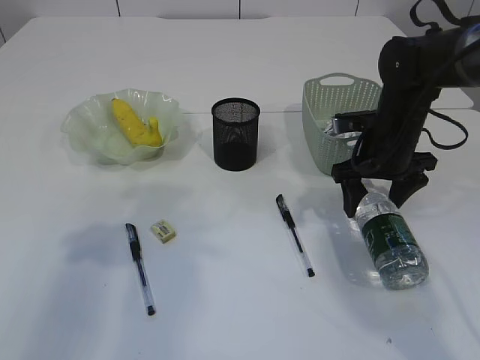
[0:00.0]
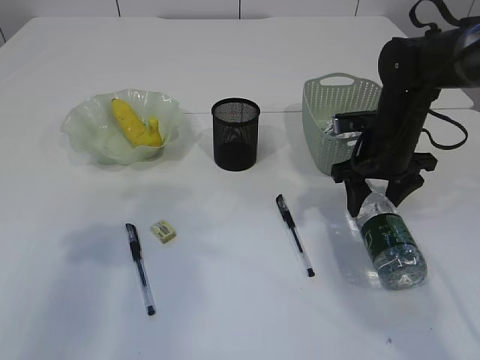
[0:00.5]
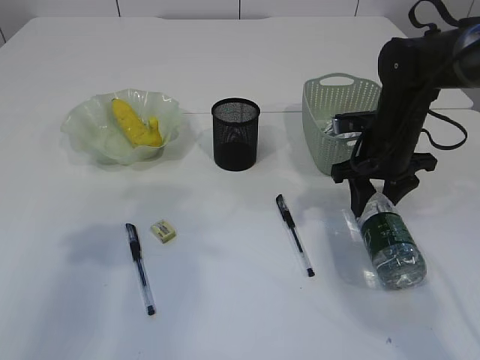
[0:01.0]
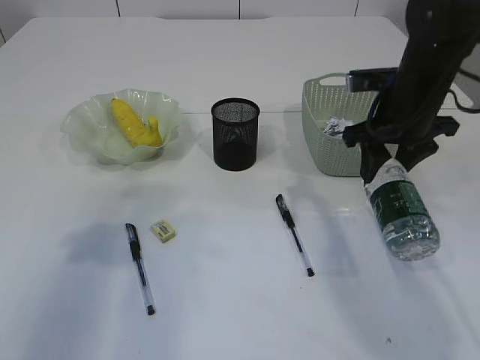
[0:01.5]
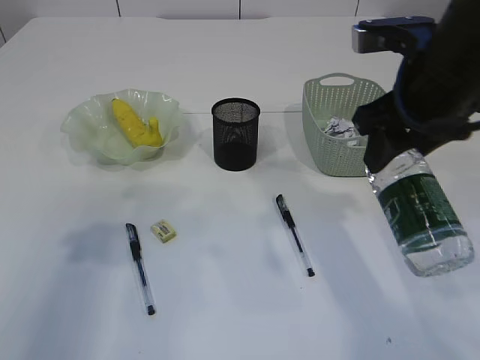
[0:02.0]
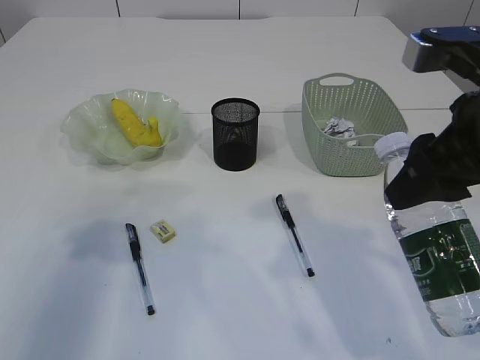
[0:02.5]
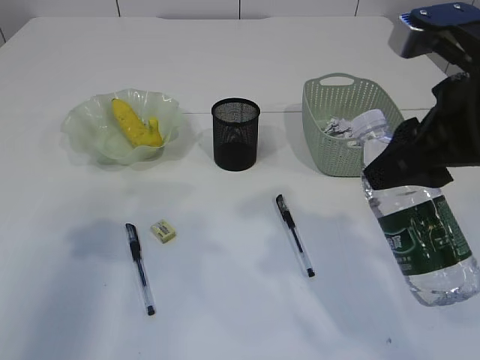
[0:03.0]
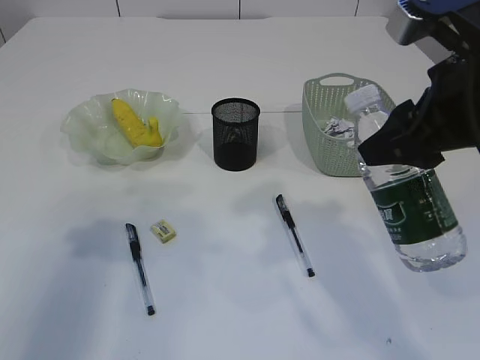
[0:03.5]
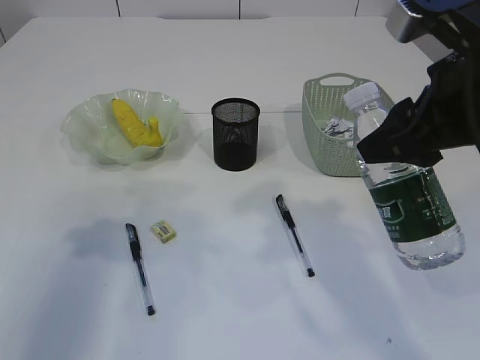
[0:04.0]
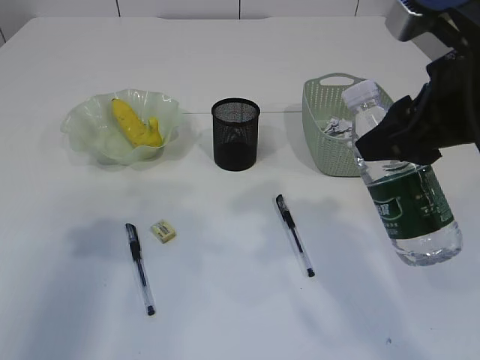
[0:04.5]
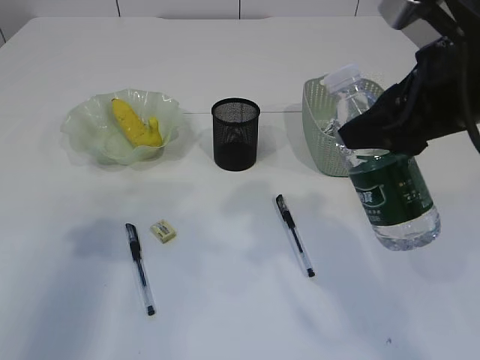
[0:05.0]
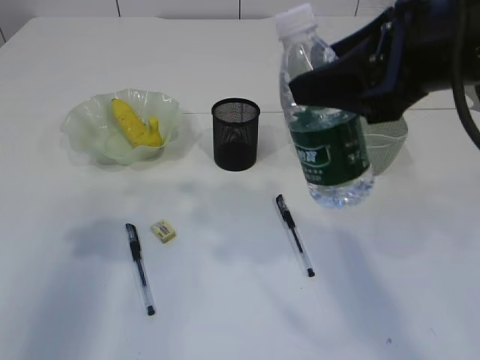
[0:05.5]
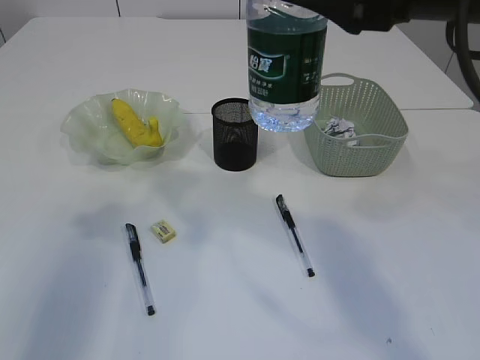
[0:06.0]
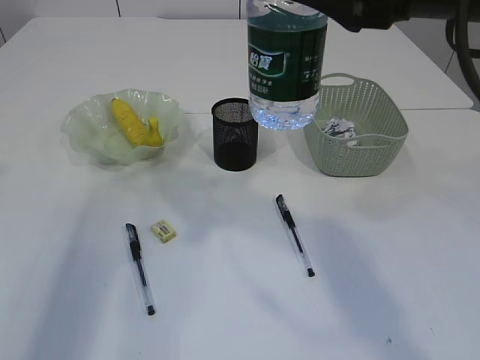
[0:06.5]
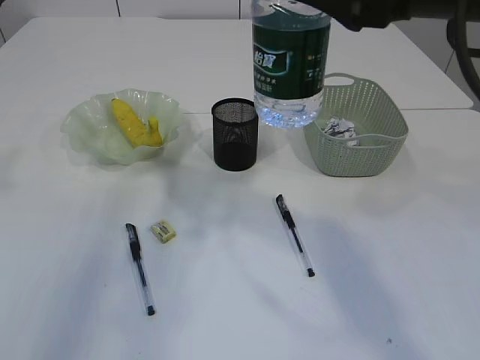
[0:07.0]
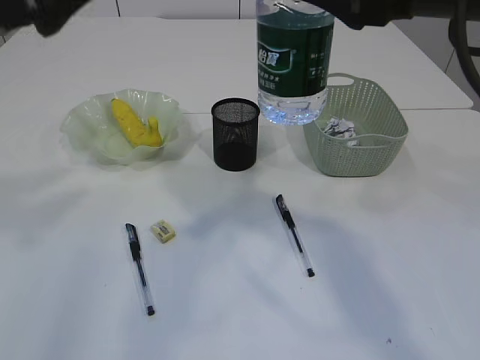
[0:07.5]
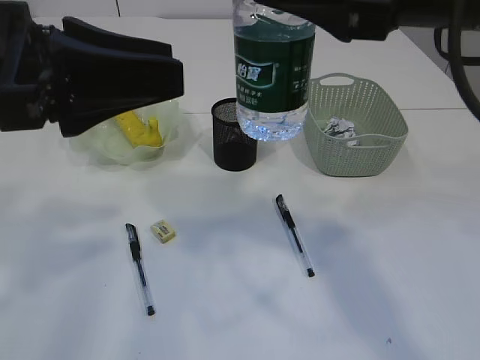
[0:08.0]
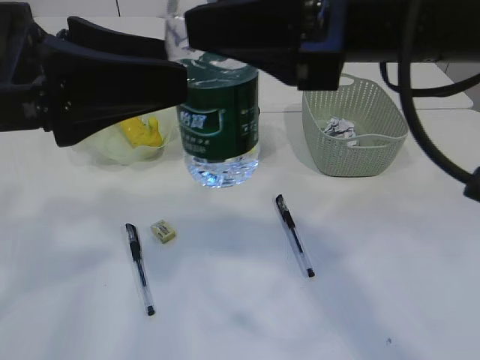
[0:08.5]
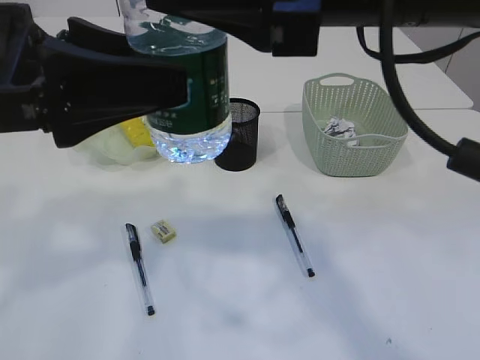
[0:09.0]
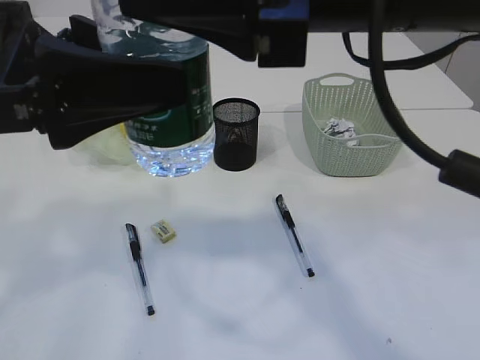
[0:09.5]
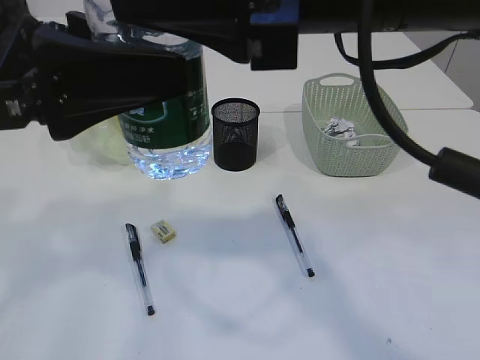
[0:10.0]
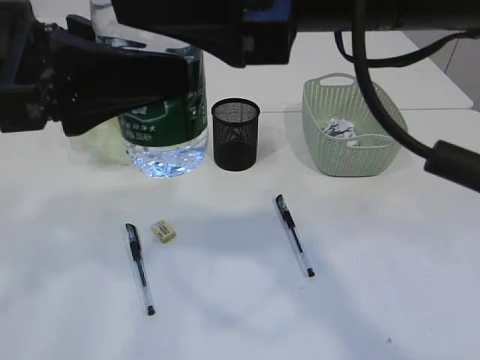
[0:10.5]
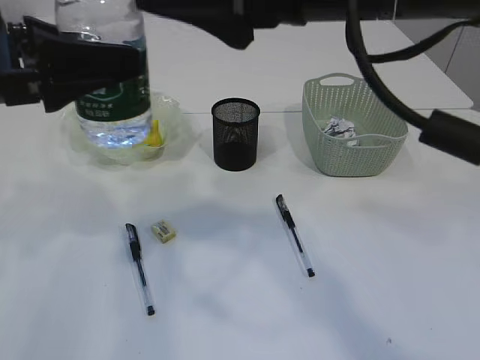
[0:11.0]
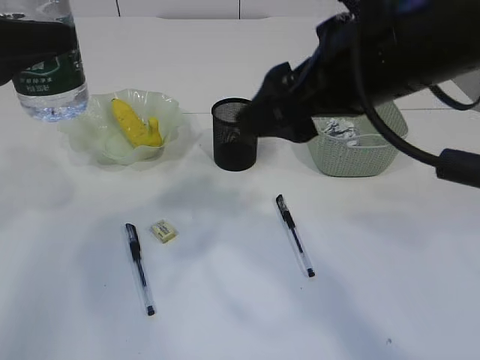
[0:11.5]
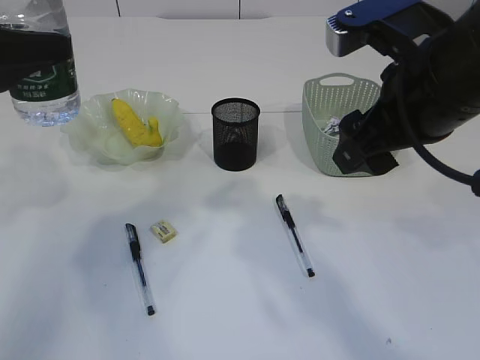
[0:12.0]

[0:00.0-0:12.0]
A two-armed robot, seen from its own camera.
Step, 0:02.0 to 0:11.0: transfer the bottle to the left arm.
0:00.0 to 0:02.0: The right gripper travels upward and backward by approximately 15 cm, and closes up.
0:02.0 to 0:04.0: The right gripper goes some 5 cm backward.
0:04.0 to 0:06.0: The right gripper goes roughly 5 cm upward.
0:06.0 to 0:08.0: The left gripper moves to the right, roughly 10 cm.
0:08.0 to 0:10.0: The right gripper heads to the left, covering some 5 cm.
0:10.0 to 0:12.0: The left gripper goes about 10 cm to the left and forward; the right gripper moves to the right and downward, roughly 10 cm, and opens its fingers.

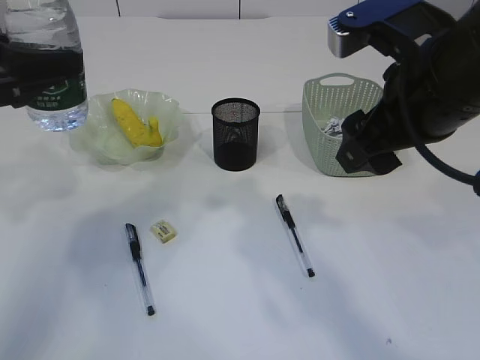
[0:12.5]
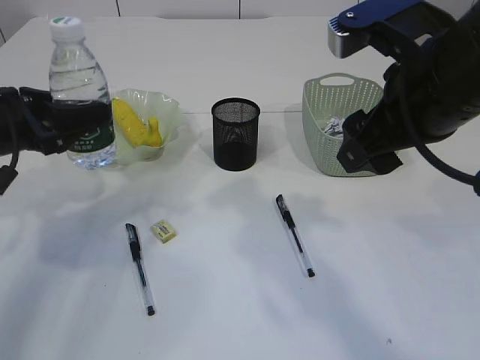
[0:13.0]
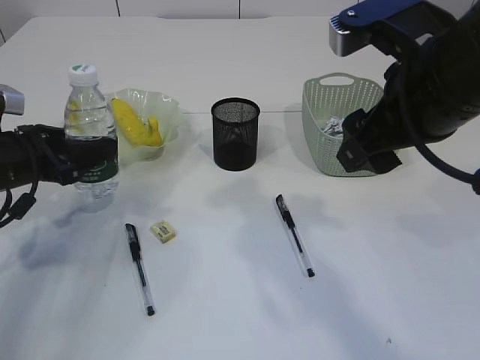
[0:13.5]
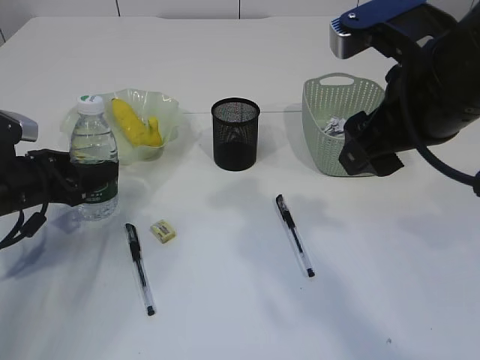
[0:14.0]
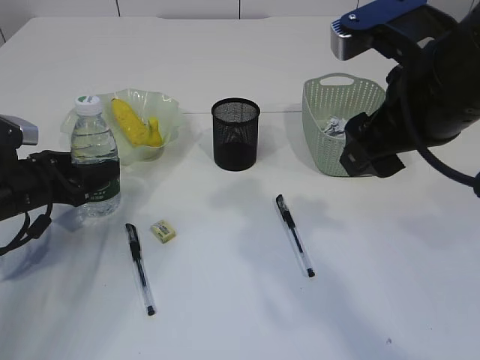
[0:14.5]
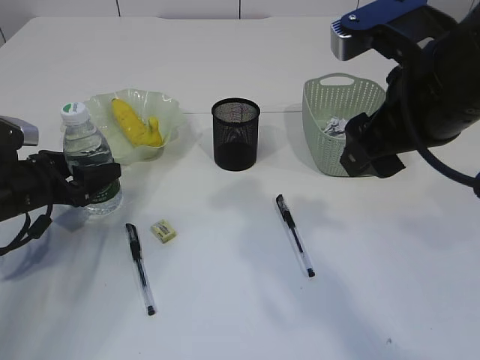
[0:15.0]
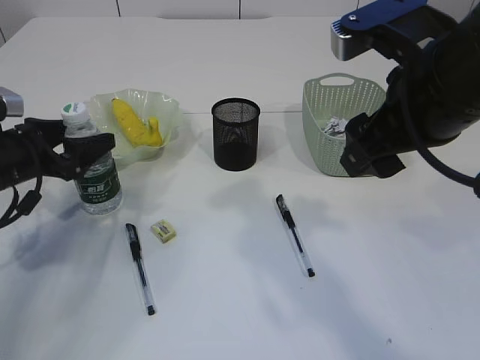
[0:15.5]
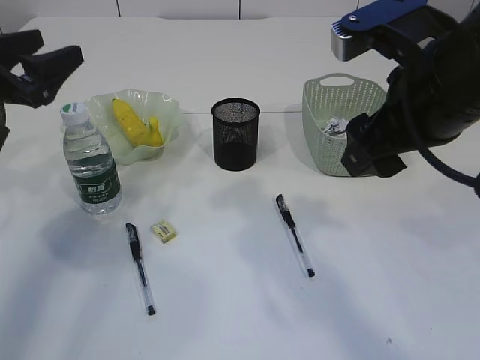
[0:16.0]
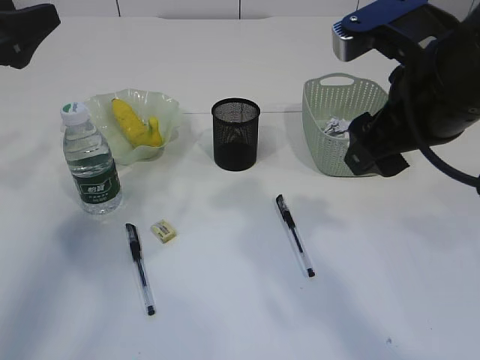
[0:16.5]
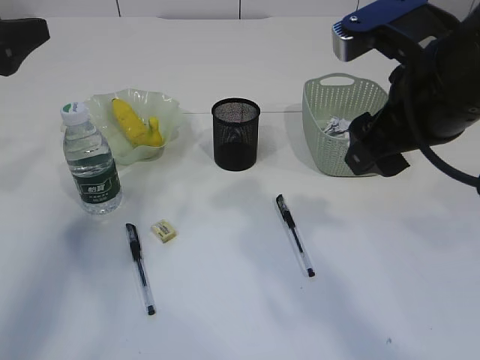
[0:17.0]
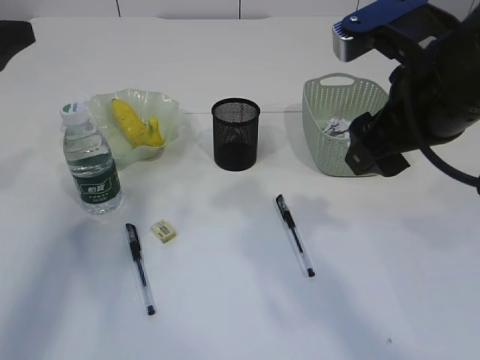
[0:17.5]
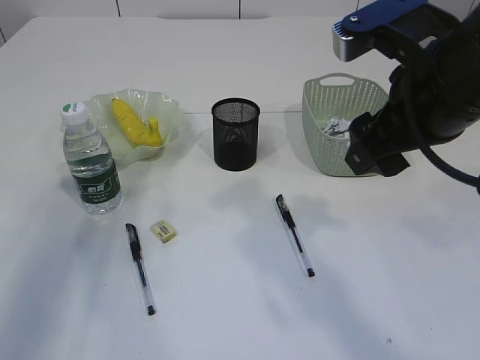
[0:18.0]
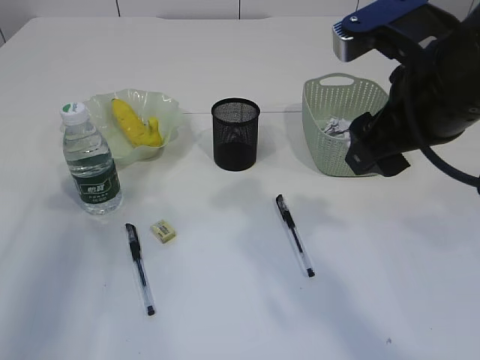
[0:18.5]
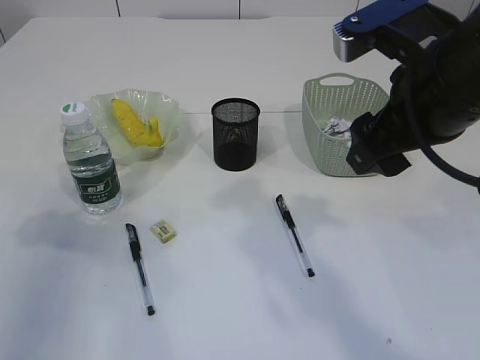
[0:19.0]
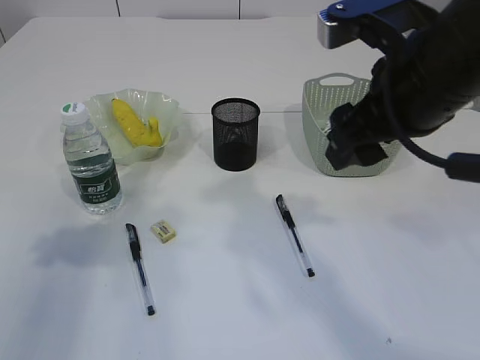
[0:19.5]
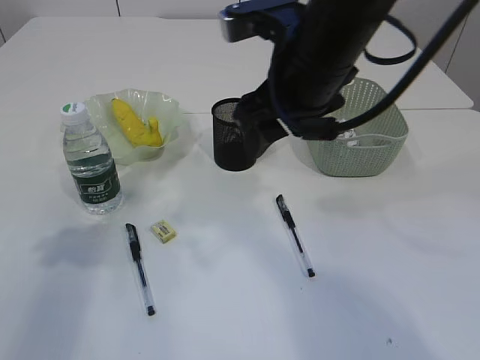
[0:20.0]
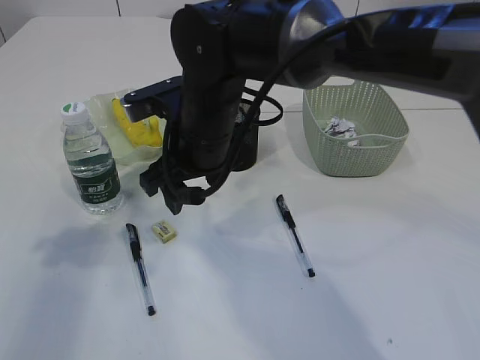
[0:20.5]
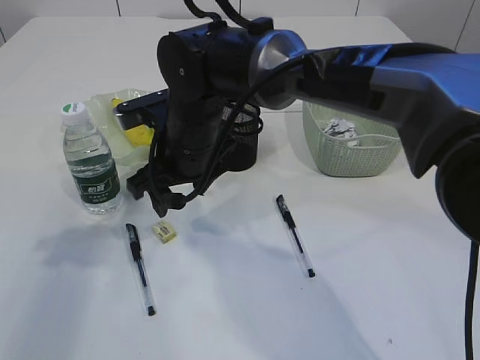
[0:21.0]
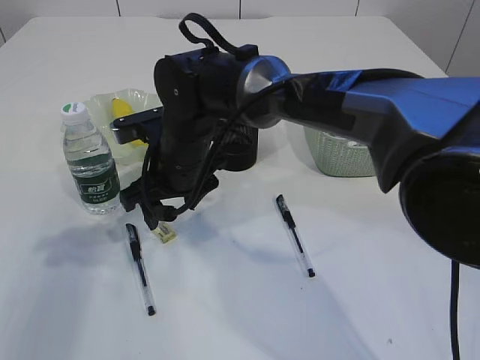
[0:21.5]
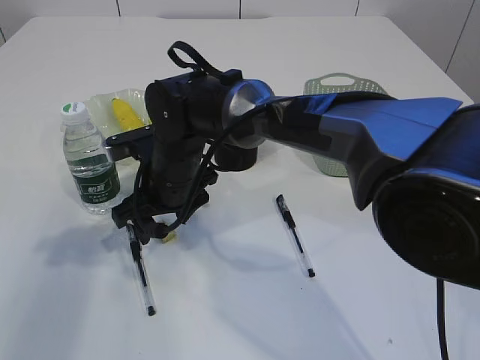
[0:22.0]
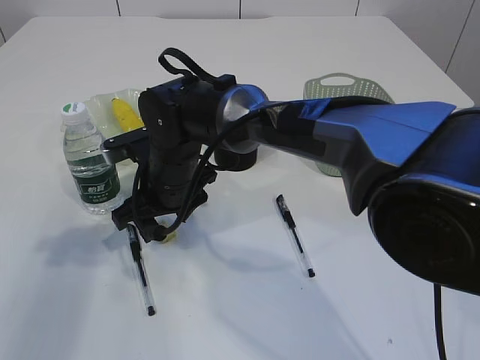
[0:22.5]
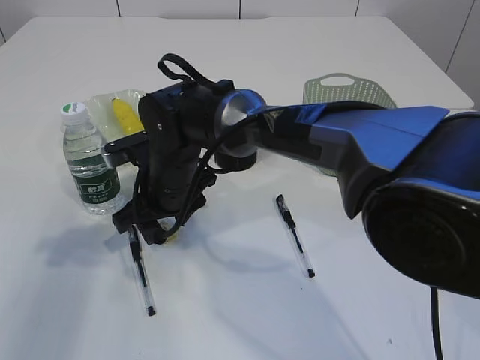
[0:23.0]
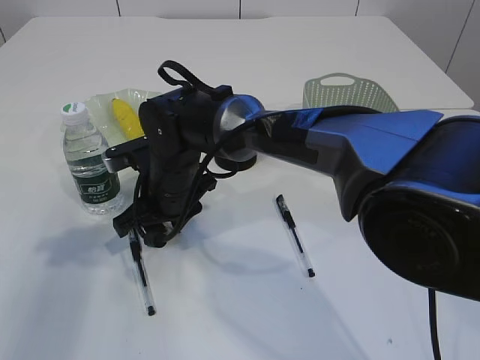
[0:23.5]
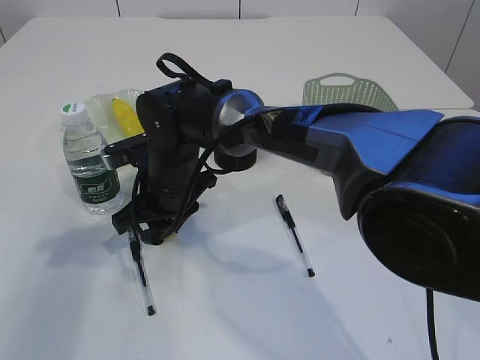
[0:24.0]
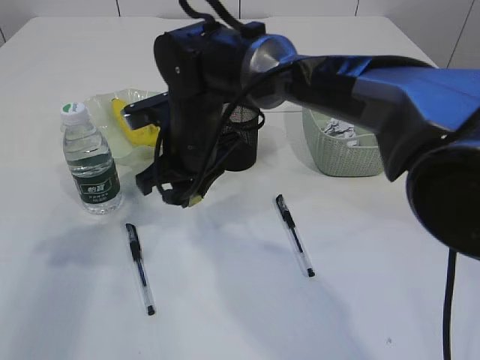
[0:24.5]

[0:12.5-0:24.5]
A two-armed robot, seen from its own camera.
Step, 0:12.5 to 0:15.5: Place the bottle.
Step, 0:16.0 to 0:24.5: Pick up the eraser.
0:12.5 to 0:14.5: The left gripper shifts approximately 20 cm downward.
0:14.5 to 0:16.5: The left gripper shifts some 20 cm upward, and opens its fingers.
0:16.5 to 0:18.5: The left gripper changes place by about 5 cm.
0:18.5 to 0:20.5: The right gripper goes roughly 20 cm to the left, forward and downward.
0:20.5 to 0:22.5: The right gripper moves downward, approximately 10 cm.
0:22.5 to 0:24.5: The right gripper changes place by about 5 cm, and closes.

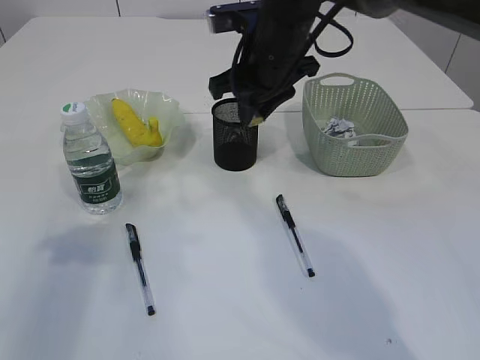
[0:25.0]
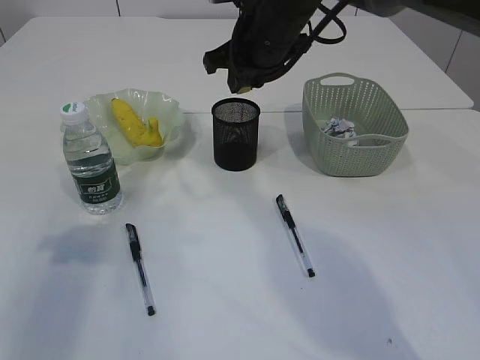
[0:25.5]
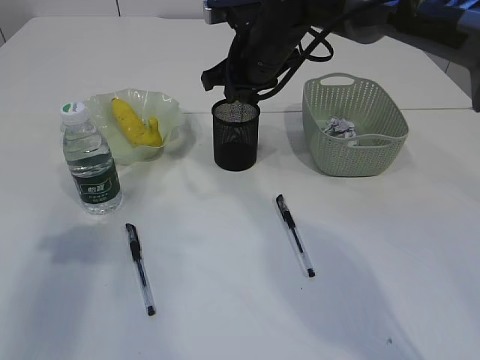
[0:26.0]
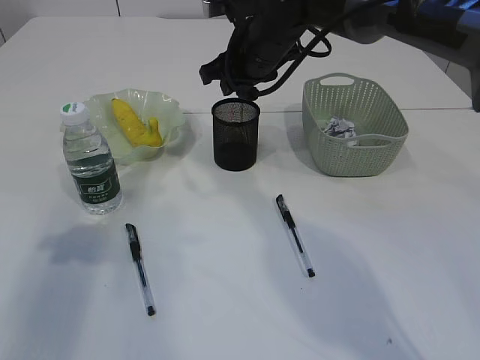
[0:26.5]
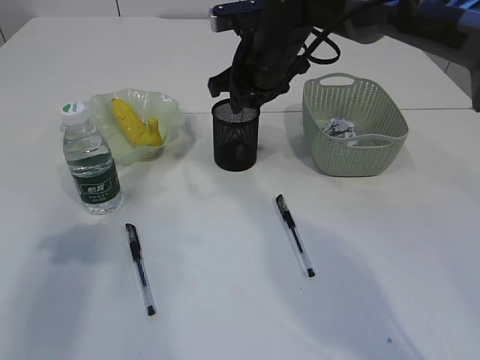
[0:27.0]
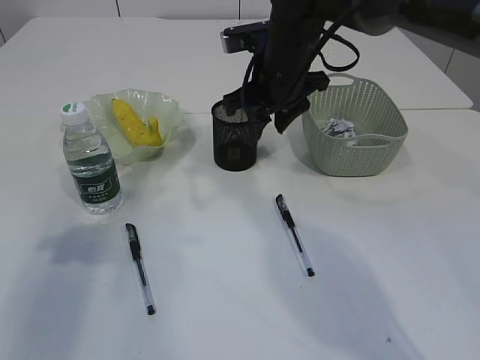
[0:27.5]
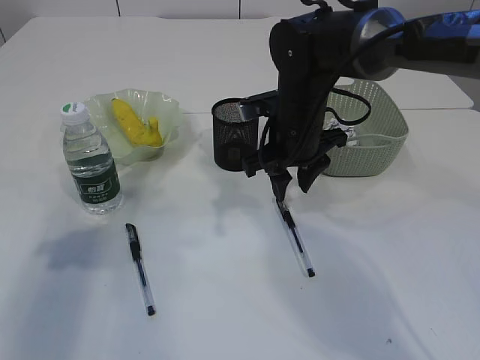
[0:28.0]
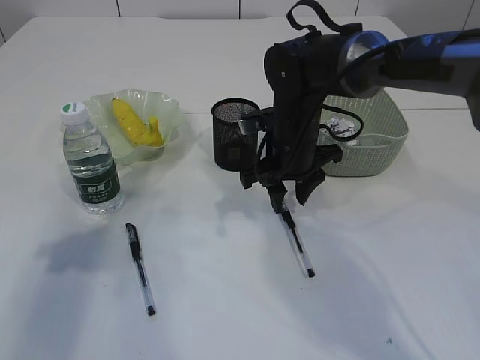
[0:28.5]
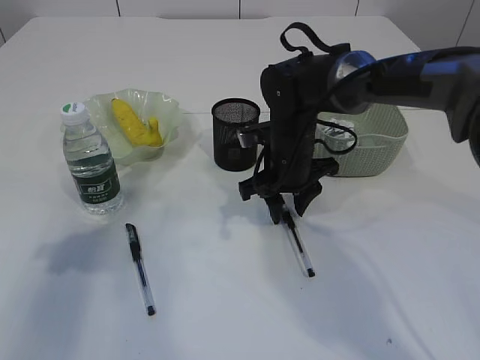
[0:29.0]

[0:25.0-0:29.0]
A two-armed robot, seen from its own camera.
Step, 0:25.0 to 0:26.5: Place the eraser into the pen holder.
0:27.0 to 0:29.0: The right gripper goes approximately 10 cm downward.
